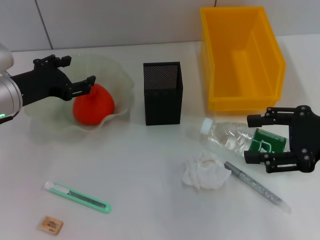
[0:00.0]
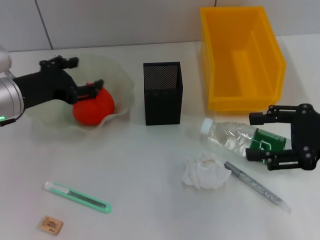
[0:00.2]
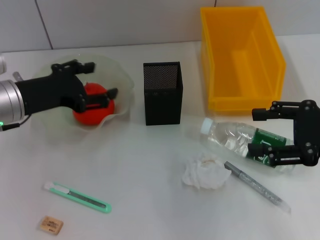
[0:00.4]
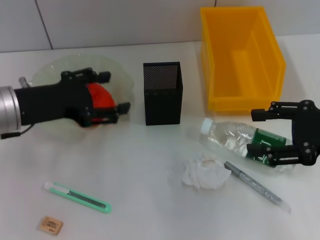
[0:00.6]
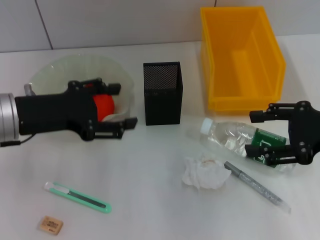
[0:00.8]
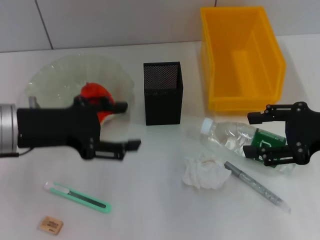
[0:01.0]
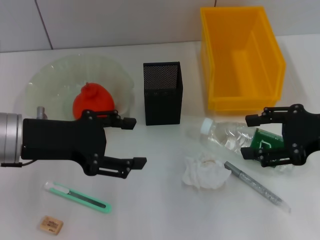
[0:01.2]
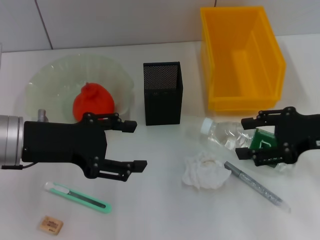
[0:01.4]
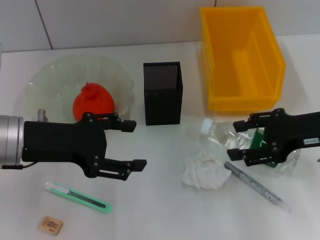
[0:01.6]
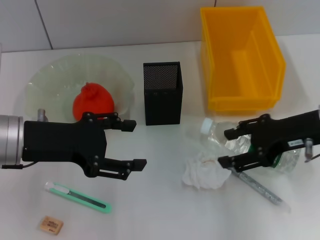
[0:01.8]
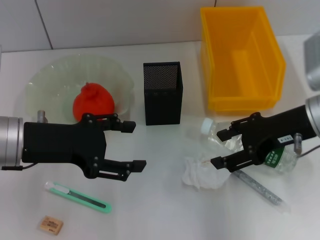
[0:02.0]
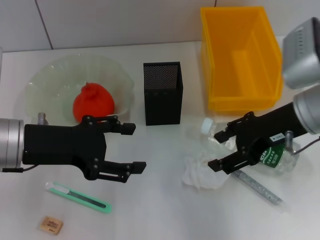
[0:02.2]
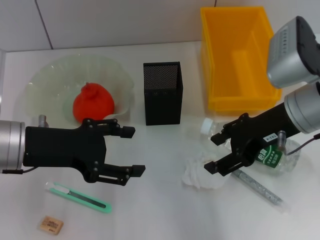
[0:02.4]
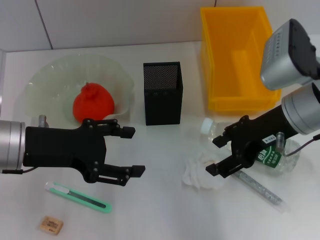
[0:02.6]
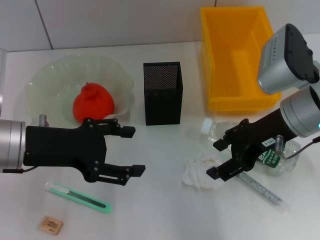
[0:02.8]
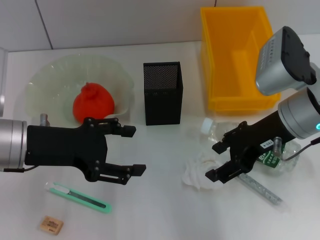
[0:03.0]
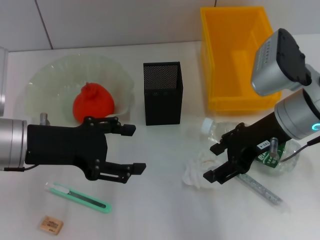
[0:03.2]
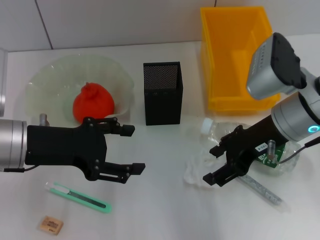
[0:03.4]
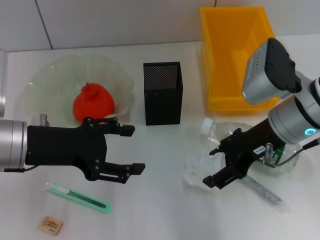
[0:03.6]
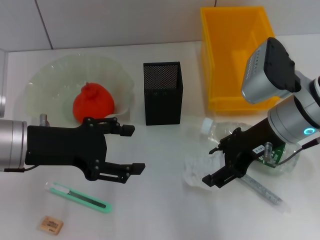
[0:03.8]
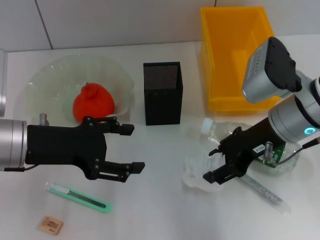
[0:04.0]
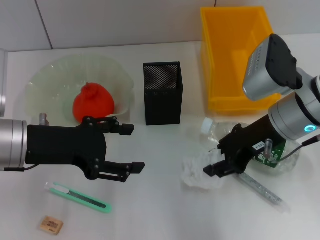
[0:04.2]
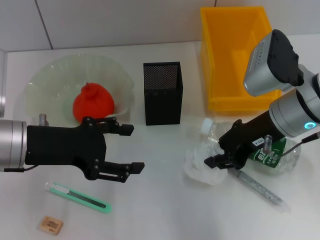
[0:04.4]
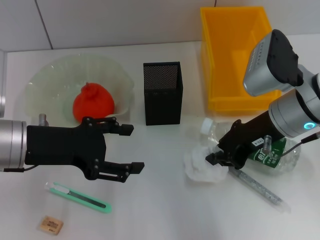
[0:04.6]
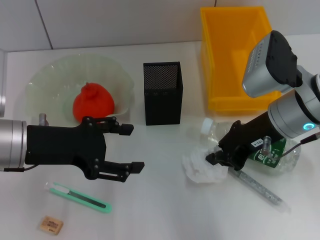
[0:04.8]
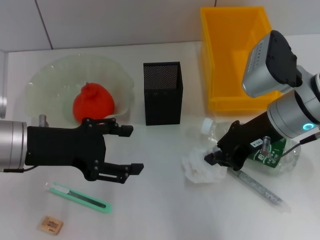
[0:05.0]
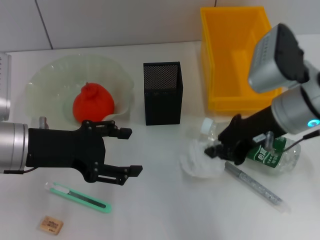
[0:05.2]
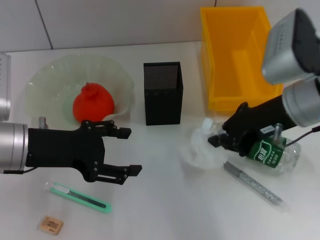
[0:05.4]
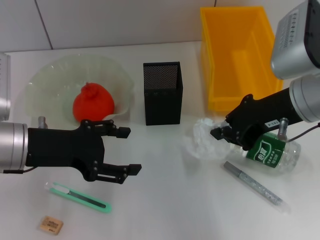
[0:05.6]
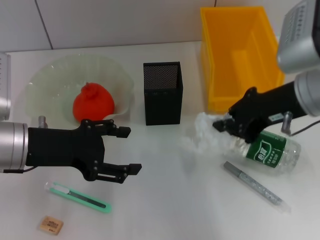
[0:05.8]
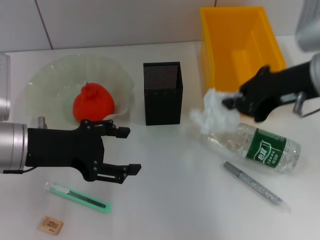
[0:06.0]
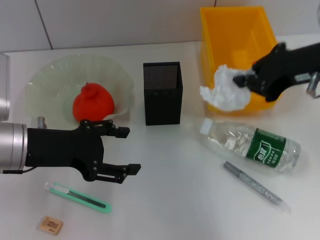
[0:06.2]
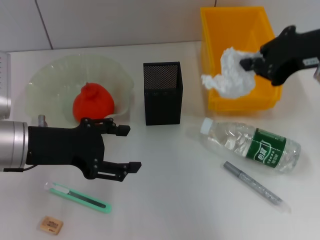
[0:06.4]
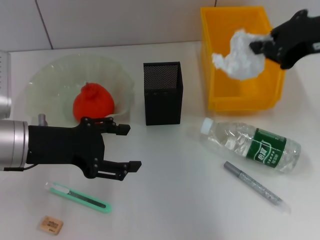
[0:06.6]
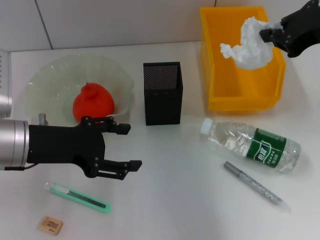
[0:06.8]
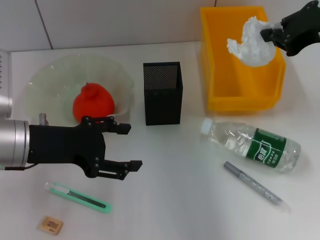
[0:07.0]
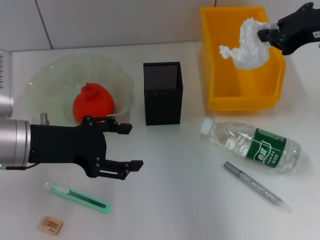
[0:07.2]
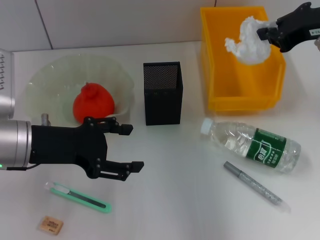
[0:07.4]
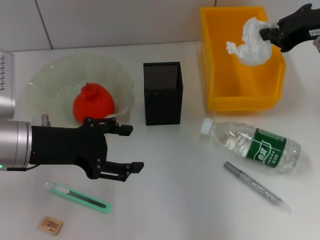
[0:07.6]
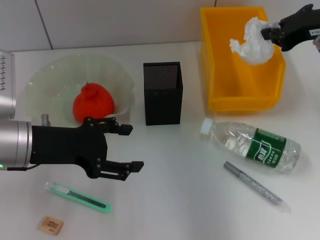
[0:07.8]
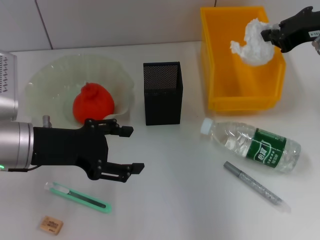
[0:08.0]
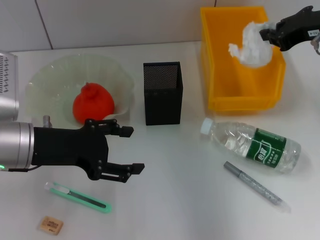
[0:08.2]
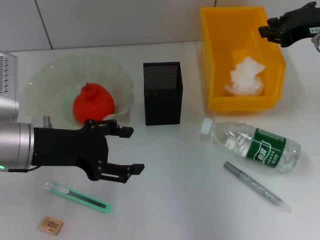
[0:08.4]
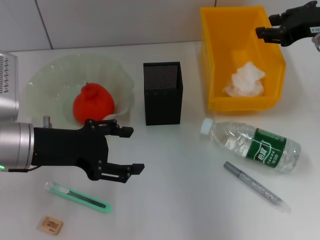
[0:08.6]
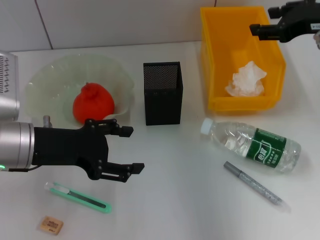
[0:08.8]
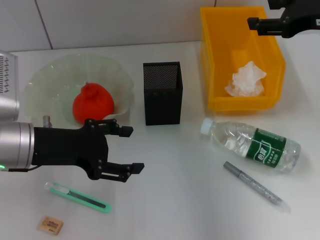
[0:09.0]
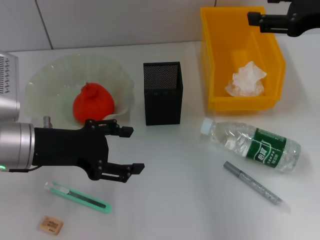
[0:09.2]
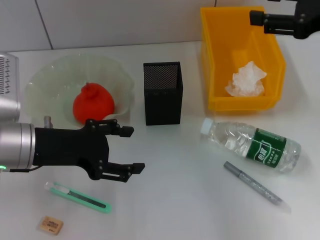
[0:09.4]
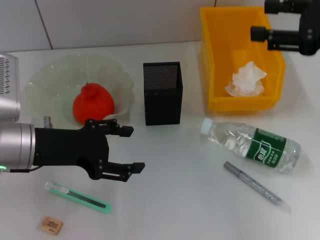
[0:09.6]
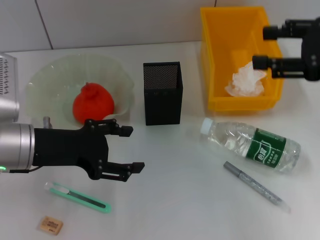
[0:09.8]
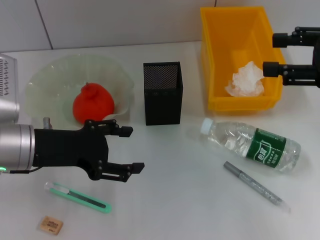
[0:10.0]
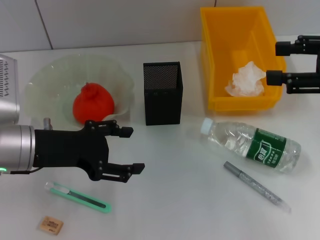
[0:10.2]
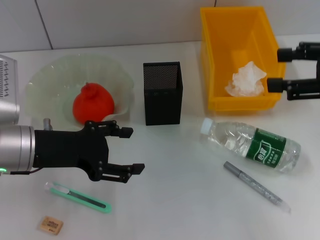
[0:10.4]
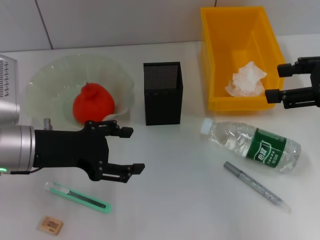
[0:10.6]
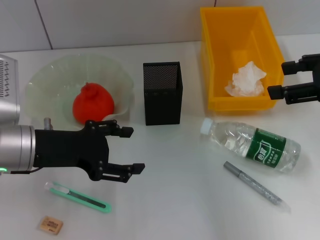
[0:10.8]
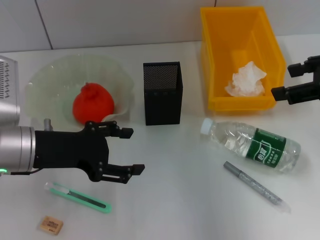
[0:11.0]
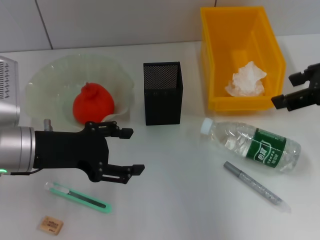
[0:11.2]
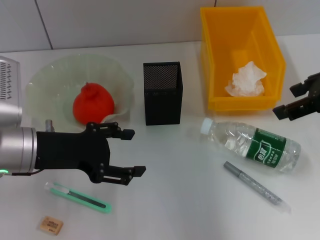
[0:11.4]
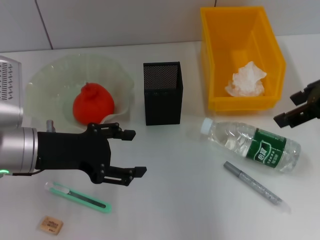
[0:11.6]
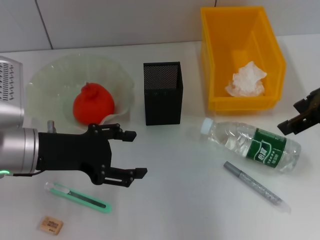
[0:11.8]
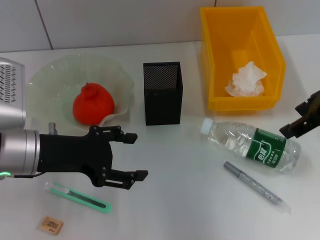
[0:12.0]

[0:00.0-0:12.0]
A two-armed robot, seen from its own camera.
Step, 0:00.0 to 0:04.4: Grab the paper ball with the right hand.
Step, 0:04.8 to 0:08.6: Place the paper ball into the trash can with the right hand.
0:00.0 to 0:01.6: The left gripper travels backward by approximately 5 cm. The right gripper shifts by approximately 5 cm.
0:01.6 to 0:03.0: The right gripper moves to the left, about 10 cm.
0:03.0 to 0:04.4: The right gripper closes its fingers.
0:04.4 to 0:06.0: The right gripper travels upward by roughly 10 cm, and closes its fingers.
0:06.0 to 0:07.6: The right gripper is displaced forward and to the right by approximately 10 cm.
0:07.6 to 0:09.0: The right gripper opens.
0:09.0 to 0:10.4: The right gripper is displaced backward by about 10 cm.
0:10.4 to 0:12.0: The right gripper moves approximately 5 cm.

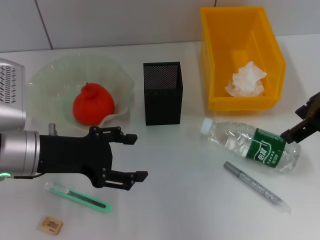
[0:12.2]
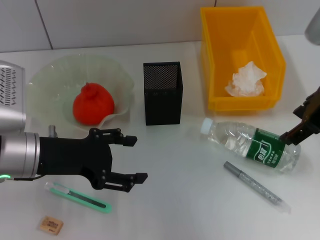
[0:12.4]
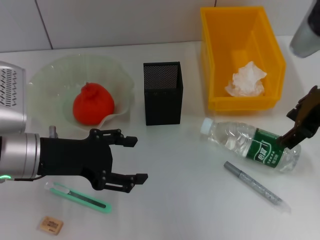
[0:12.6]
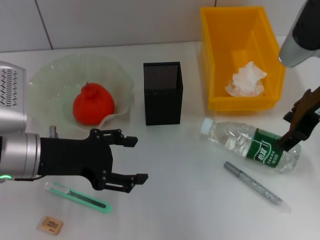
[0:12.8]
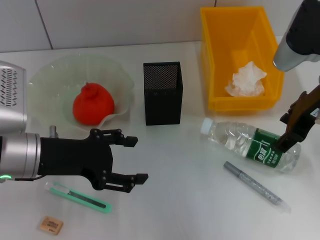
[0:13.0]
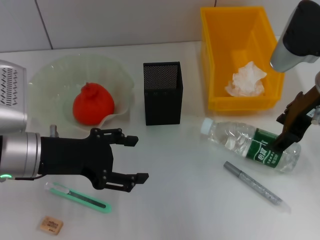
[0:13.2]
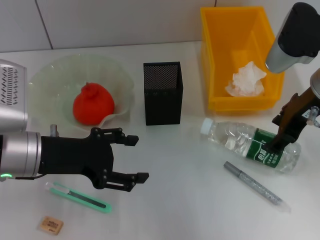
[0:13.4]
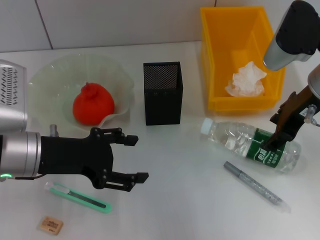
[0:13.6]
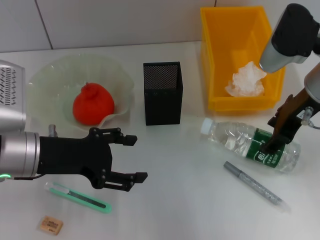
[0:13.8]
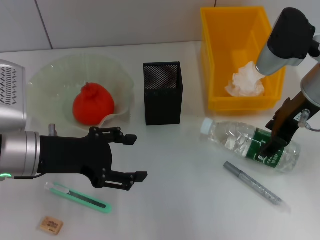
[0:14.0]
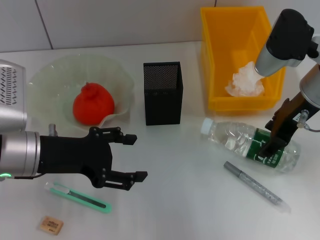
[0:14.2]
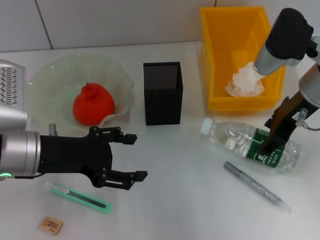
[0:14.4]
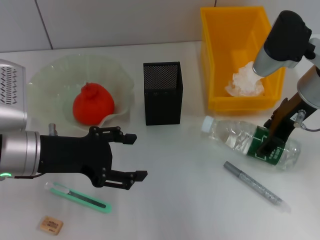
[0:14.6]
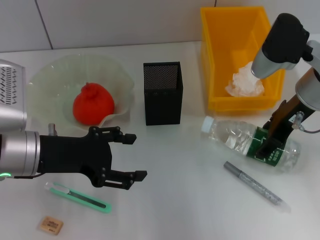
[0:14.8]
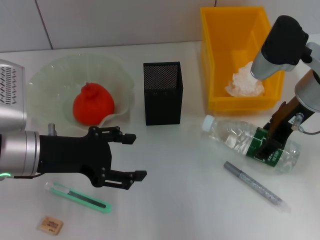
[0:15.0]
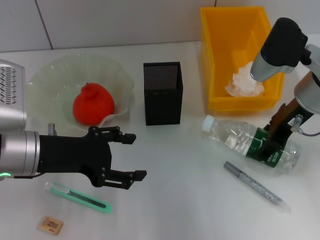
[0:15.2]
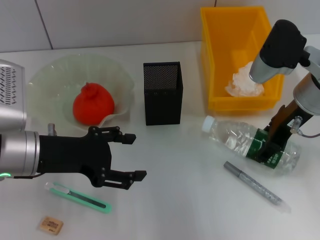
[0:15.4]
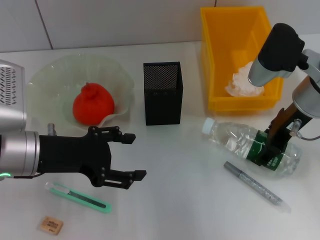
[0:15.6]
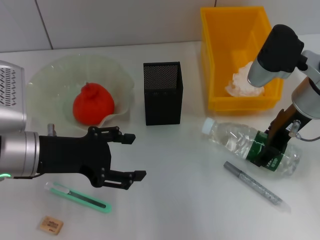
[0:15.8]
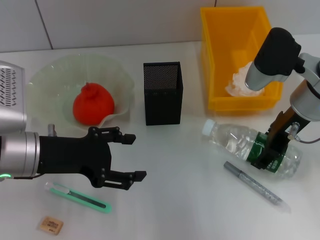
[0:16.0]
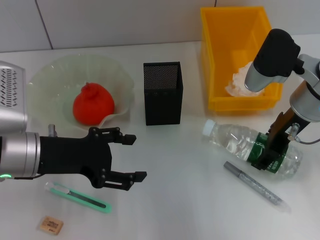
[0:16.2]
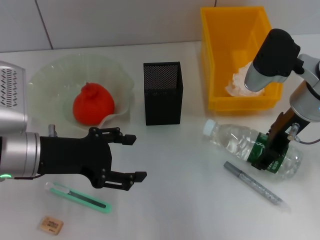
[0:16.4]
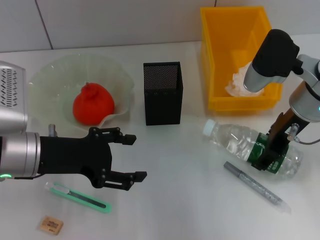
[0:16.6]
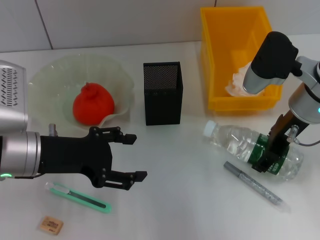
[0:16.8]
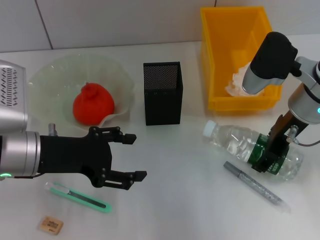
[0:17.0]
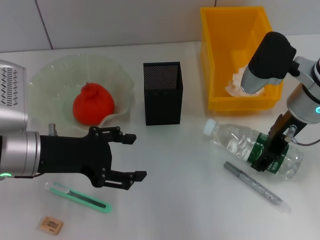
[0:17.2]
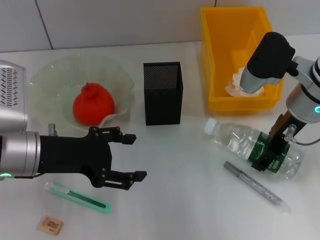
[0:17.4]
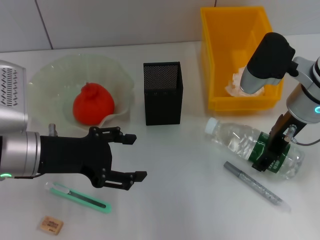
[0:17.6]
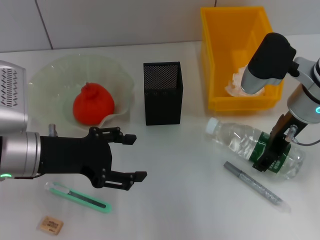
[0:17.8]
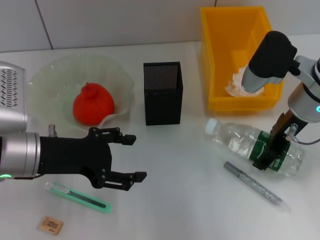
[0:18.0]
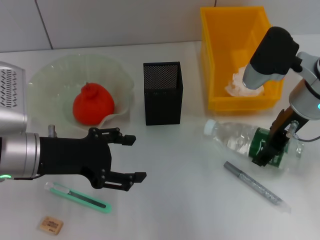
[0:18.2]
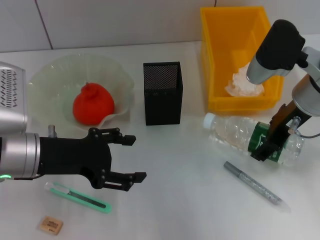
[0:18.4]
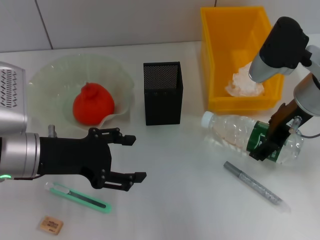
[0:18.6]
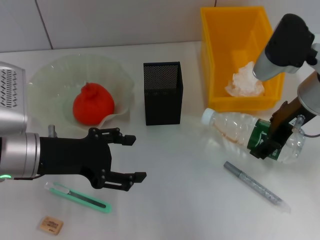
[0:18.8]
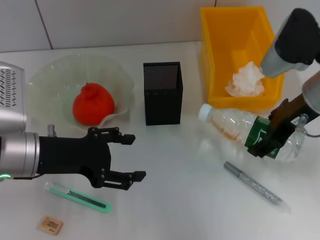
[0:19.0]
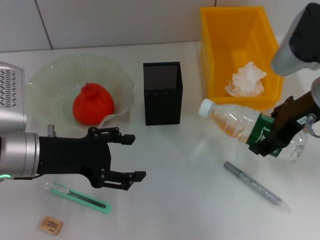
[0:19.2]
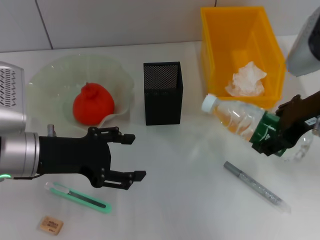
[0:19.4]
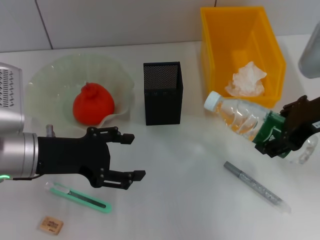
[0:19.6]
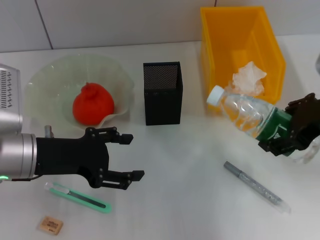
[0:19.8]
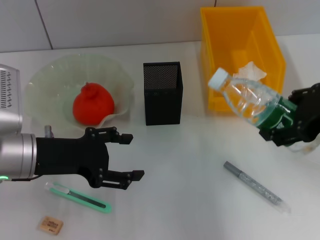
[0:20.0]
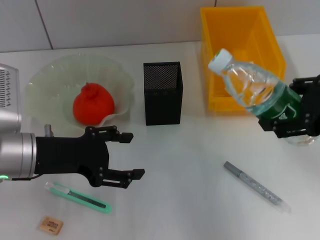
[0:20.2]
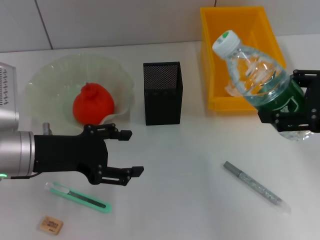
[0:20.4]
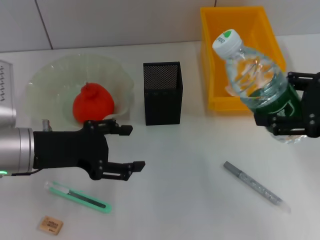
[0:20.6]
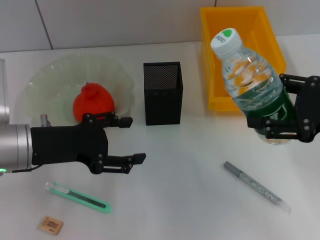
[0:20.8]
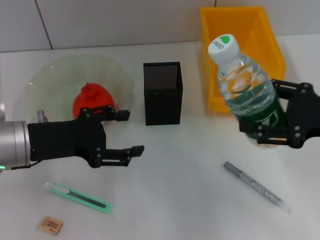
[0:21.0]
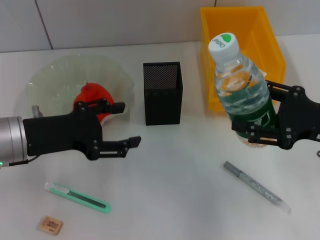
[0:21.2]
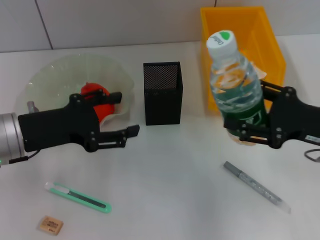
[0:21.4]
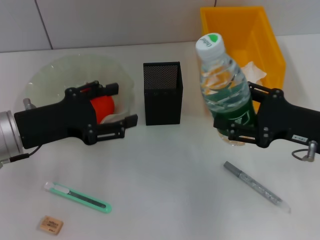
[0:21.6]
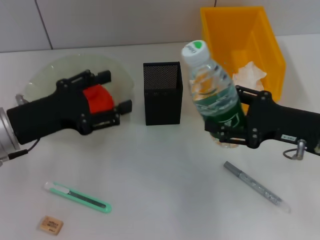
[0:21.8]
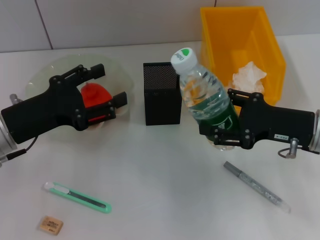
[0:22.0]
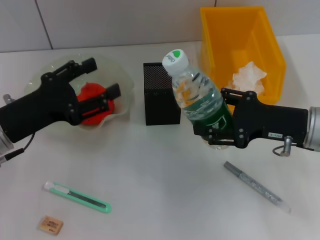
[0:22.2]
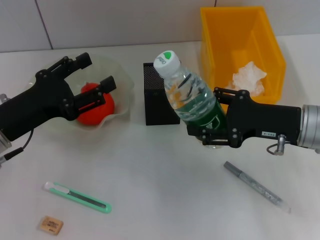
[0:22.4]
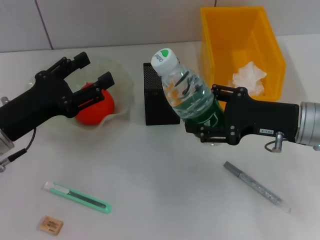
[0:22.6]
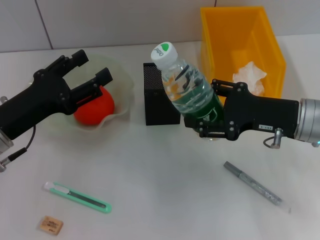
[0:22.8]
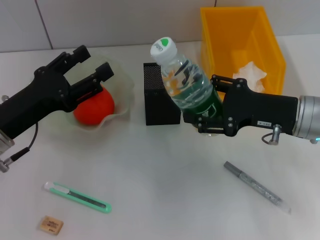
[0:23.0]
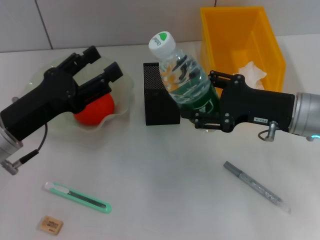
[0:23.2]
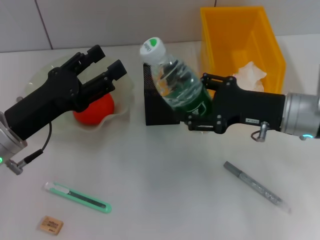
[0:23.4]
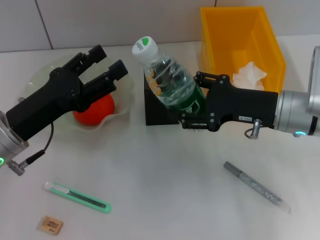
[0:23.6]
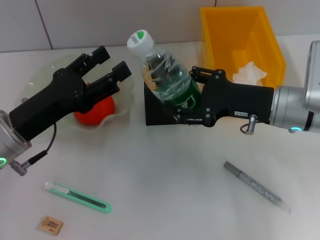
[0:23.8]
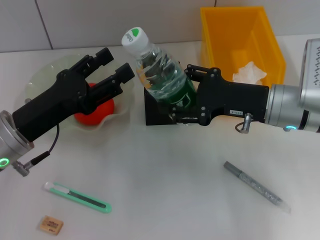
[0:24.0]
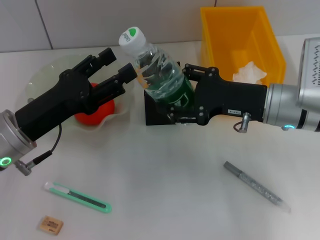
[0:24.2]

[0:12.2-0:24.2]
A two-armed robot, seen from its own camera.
Step, 0:12.2 to 0:17.6: Grab the water bottle with the right hand.
0:12.2 to 0:13.8: The right gripper travels downward by about 5 cm.
0:13.8 to 0:15.2: There are only small adjustments of the grippers.
0:15.2 to 0:16.6: Neither gripper changes place.
0:16.6 to 0:18.2: The two grippers keep their place.
0:18.2 to 0:19.8: The right gripper shifts about 10 cm backward and upward.
0:19.8 to 0:21.2: The right gripper heads downward, covering approximately 10 cm.
0:21.2 to 0:22.6: The right gripper shifts roughly 5 cm to the left.
0:22.6 to 0:24.2: The grippers stay close to where they were, moving slightly.
